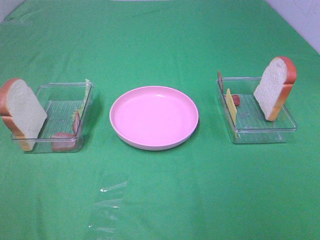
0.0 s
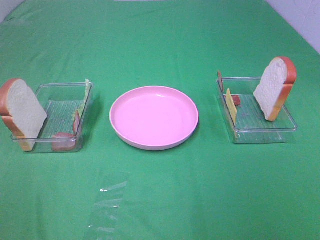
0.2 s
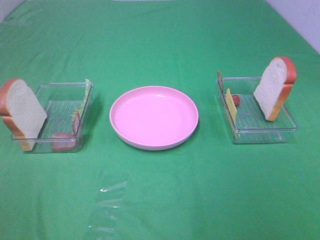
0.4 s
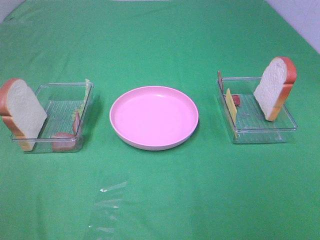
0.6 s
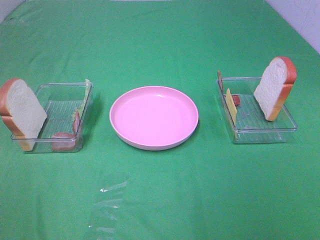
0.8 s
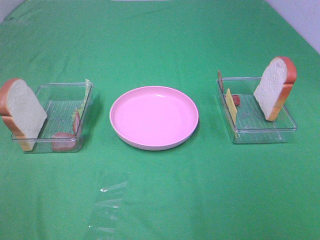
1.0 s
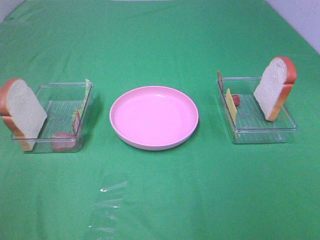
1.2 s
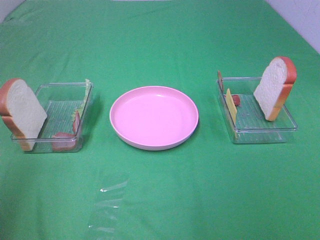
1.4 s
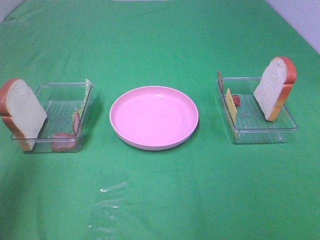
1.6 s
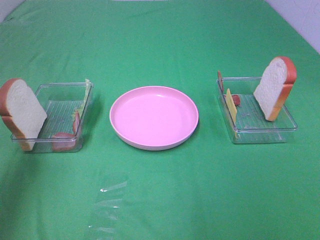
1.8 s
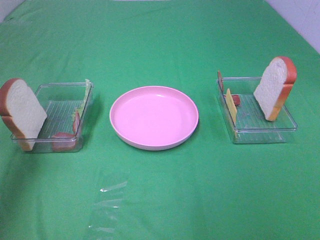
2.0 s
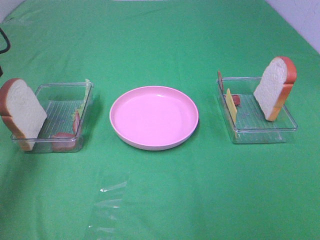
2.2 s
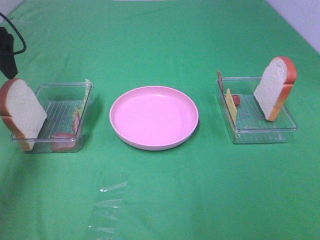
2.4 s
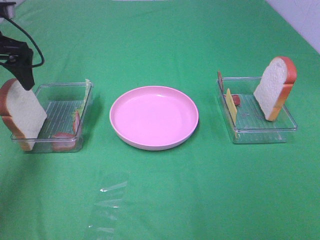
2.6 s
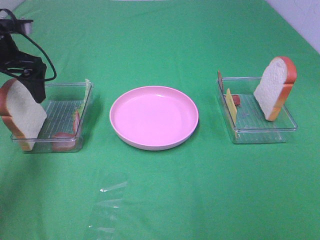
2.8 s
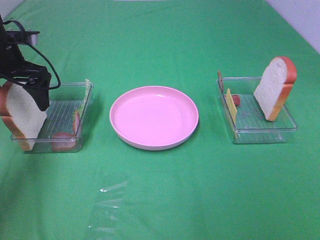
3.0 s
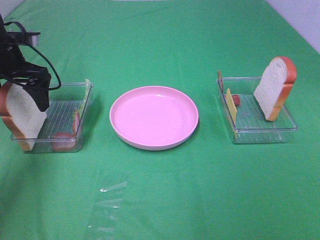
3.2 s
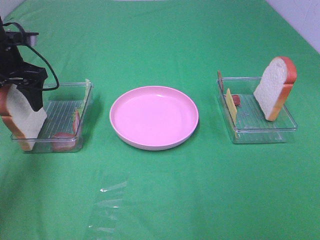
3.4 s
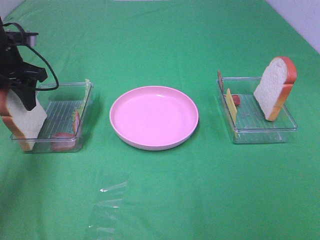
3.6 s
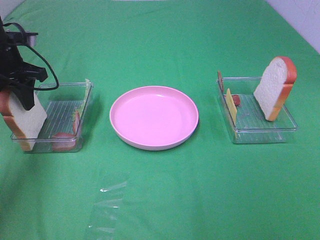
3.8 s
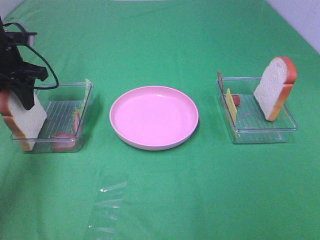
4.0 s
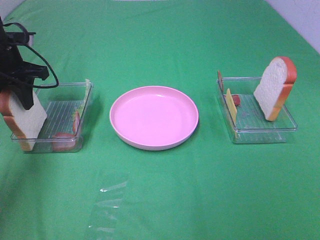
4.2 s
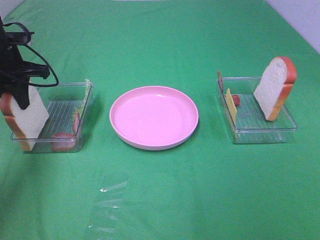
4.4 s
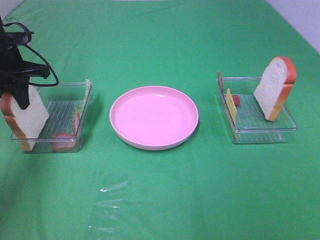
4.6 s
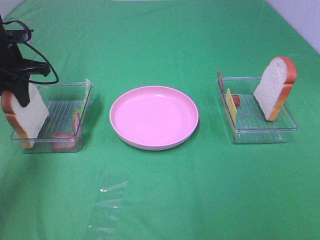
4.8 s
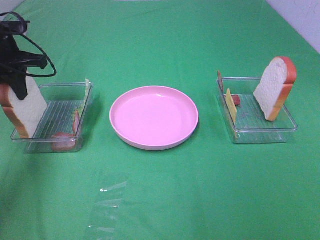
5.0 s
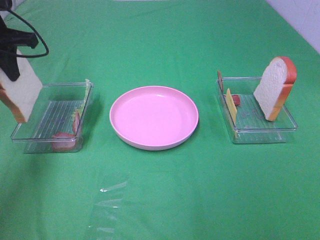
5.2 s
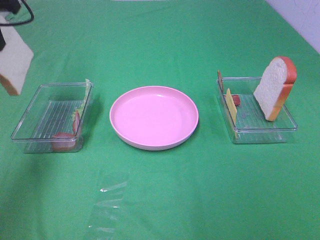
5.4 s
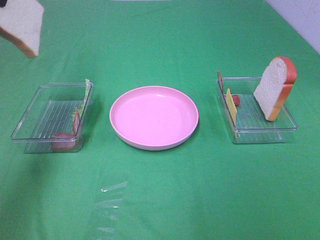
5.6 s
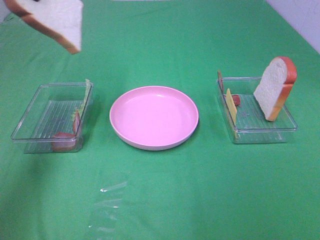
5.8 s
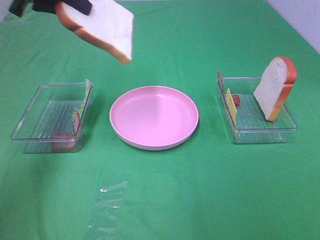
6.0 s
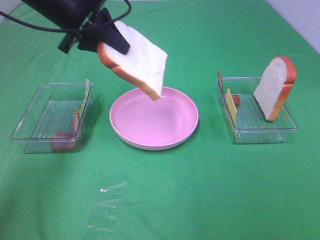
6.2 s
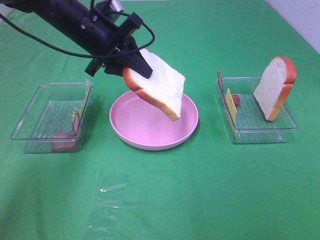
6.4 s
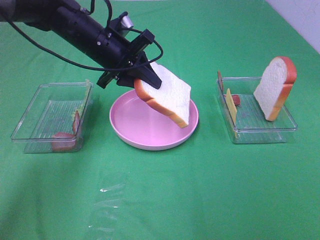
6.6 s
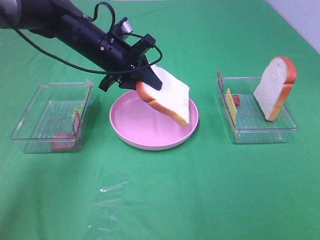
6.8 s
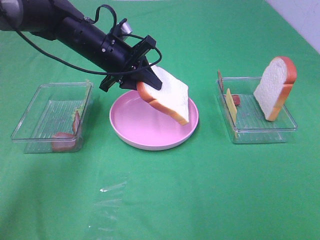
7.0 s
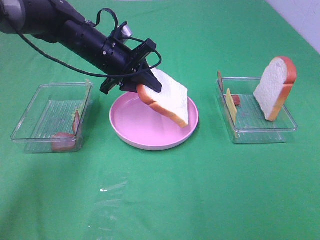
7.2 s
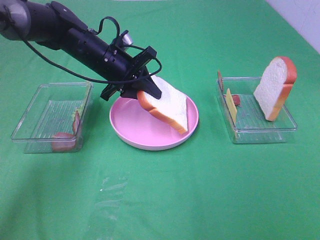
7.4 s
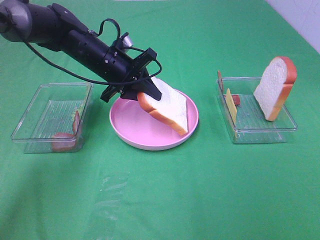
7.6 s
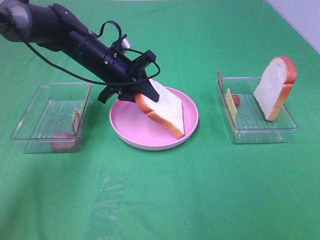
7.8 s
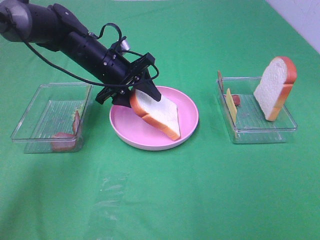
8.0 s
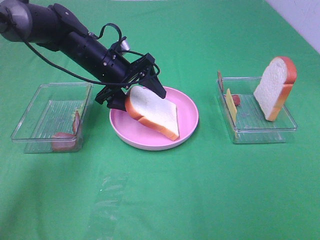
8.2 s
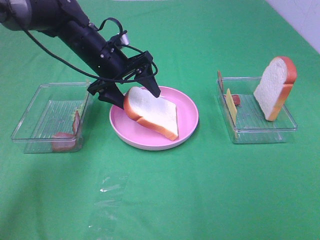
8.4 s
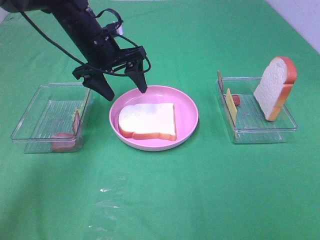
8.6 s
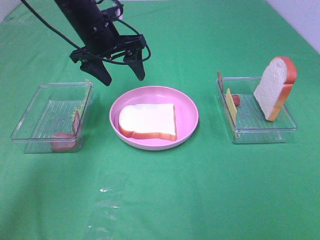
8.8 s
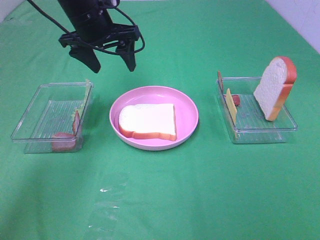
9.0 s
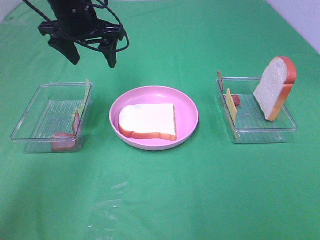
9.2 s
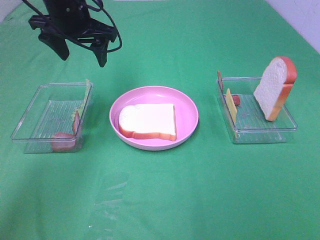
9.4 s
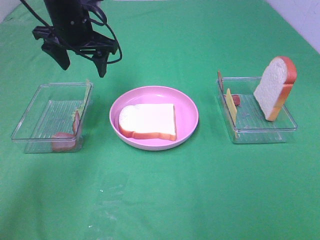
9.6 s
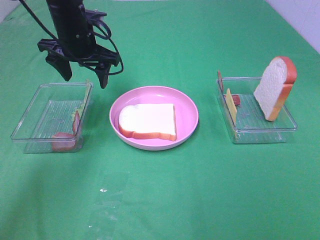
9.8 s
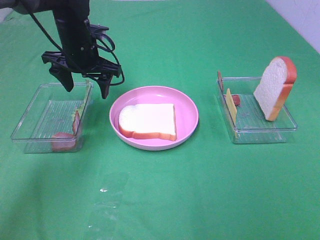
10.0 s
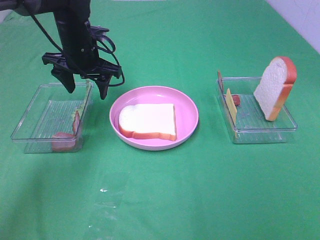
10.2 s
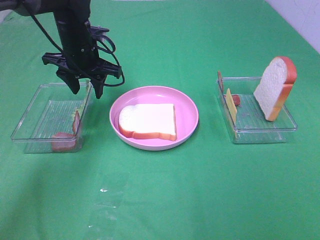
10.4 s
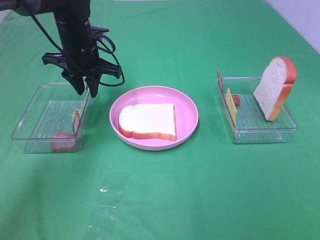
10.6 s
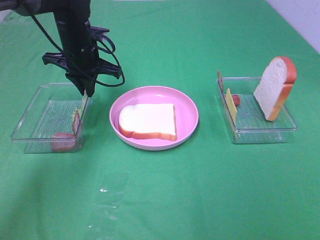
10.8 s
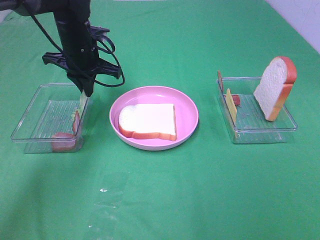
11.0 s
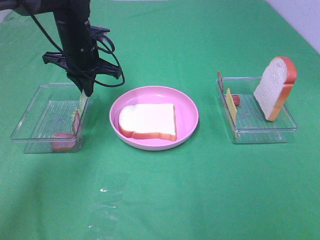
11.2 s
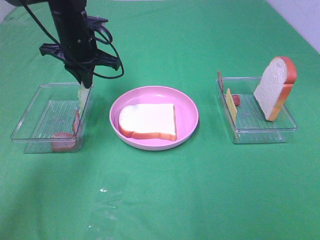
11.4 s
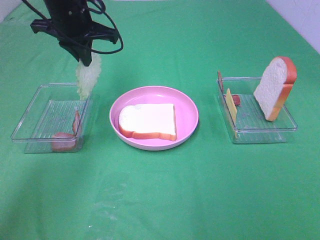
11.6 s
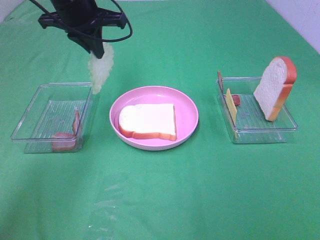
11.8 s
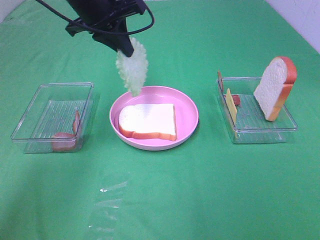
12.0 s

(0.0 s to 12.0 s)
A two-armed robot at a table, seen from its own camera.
Task of the whole recording: Make sandwiches.
Step, 0.0 s - 4.6 s: Left hand:grab the bread slice.
Step, 4.8 s - 8.6 s: Left hand:place the bread slice on the plate.
Step, 8.8 s - 11.2 s: Left hand:grab the lettuce slice.
0.0 s - 1.6 s: The left gripper travels forward and upward by approximately 20 cm.
1.6 s - 3.0 s: The left gripper shifts about 30 cm forward and downward.
3.0 s - 4.4 s: The left gripper closes its fingers.
4.4 s - 6.0 s: The left gripper heads upward and to the right, covering some 15 cm.
6.0 s - 7.6 s: The left gripper travels downward and to the right by about 20 cm.
7.6 s - 9.0 s: The left gripper heads upward, covering some 10 cm, and opens its fingers.
9.0 s - 10.4 s: The left gripper shifts about 5 cm downward.
10.4 s - 12.0 s: The left gripper is displaced upward by some 10 cm, and closes its fingers.

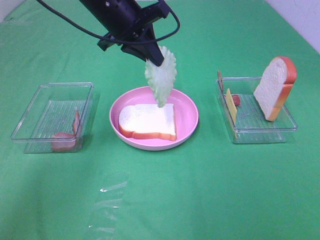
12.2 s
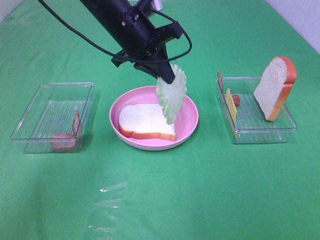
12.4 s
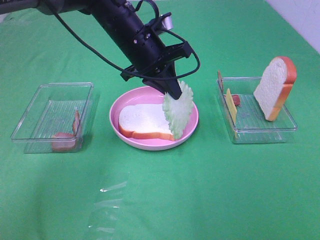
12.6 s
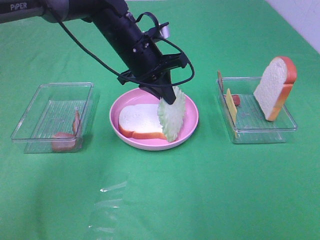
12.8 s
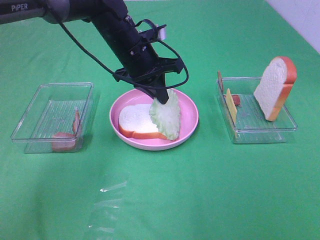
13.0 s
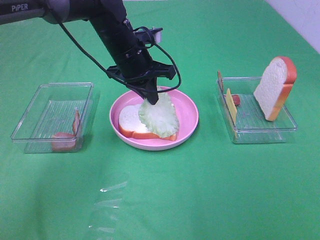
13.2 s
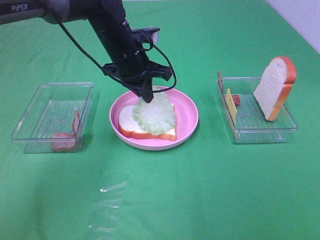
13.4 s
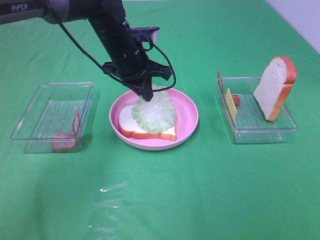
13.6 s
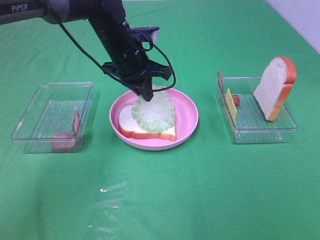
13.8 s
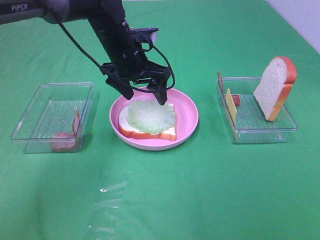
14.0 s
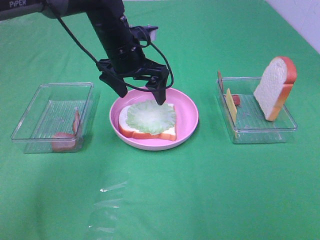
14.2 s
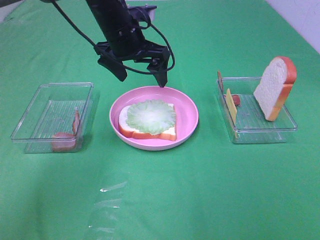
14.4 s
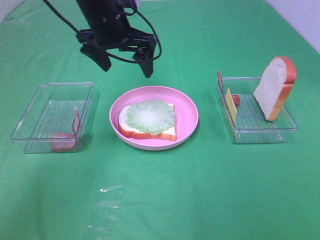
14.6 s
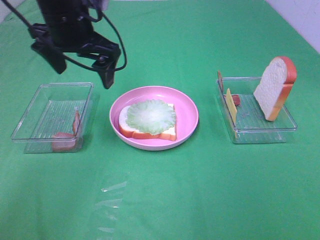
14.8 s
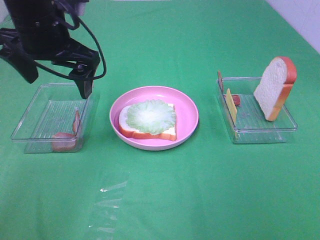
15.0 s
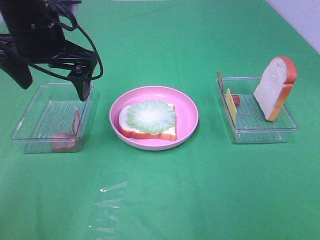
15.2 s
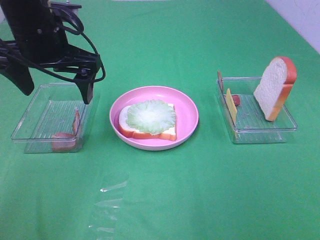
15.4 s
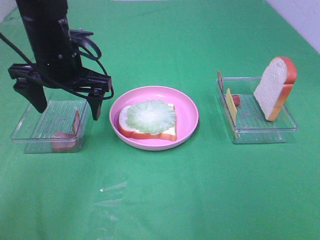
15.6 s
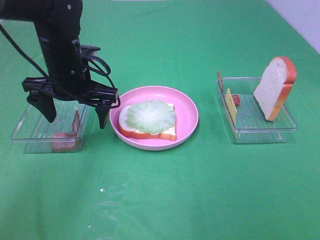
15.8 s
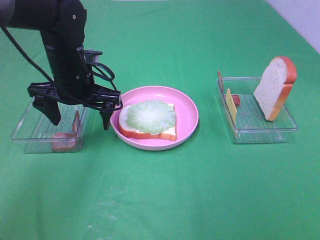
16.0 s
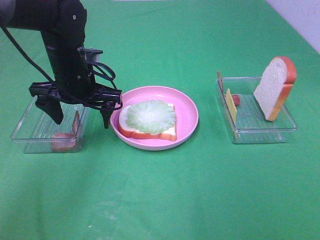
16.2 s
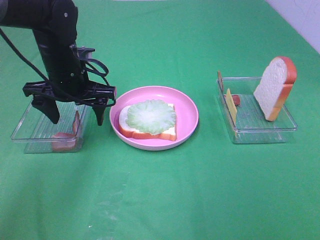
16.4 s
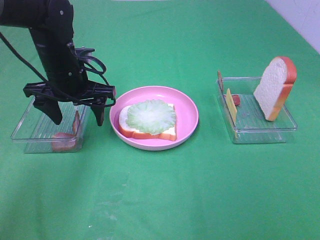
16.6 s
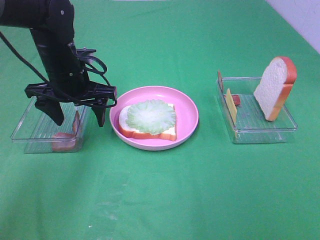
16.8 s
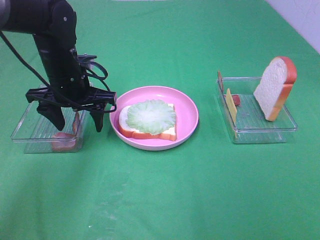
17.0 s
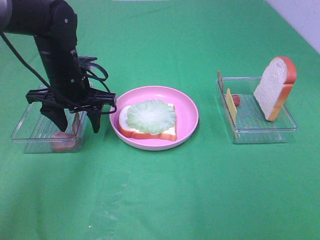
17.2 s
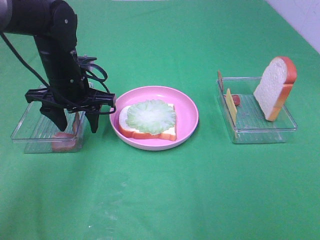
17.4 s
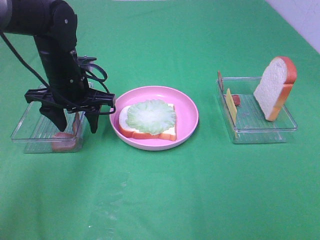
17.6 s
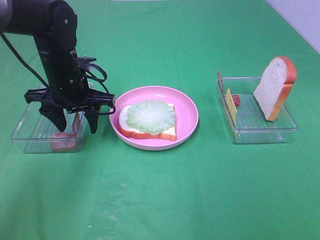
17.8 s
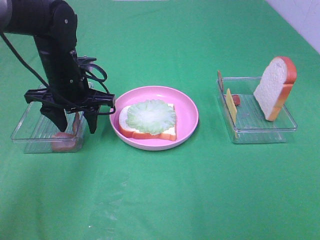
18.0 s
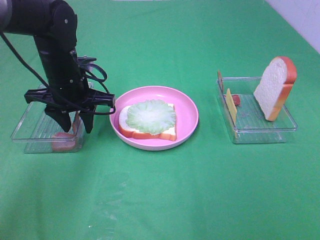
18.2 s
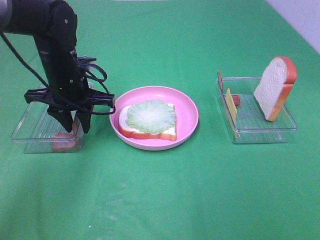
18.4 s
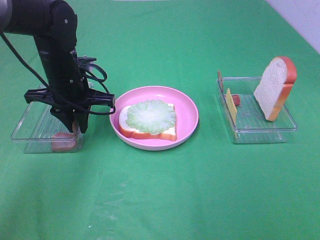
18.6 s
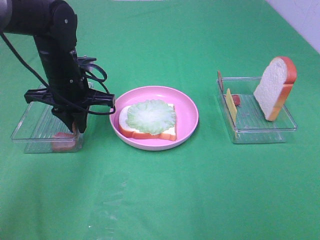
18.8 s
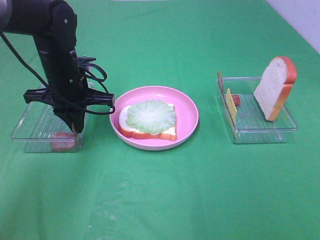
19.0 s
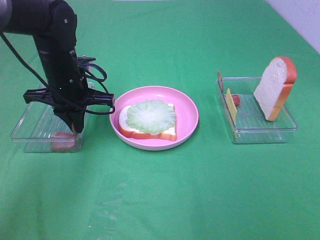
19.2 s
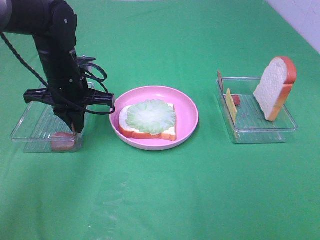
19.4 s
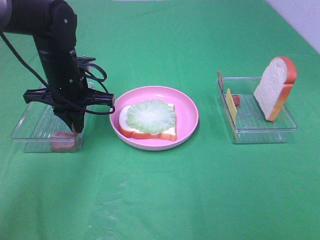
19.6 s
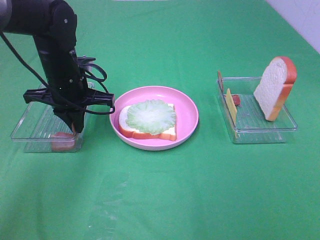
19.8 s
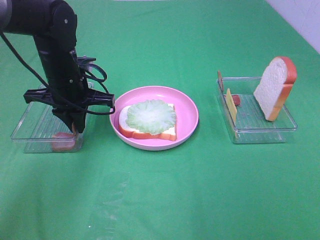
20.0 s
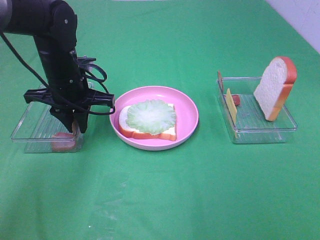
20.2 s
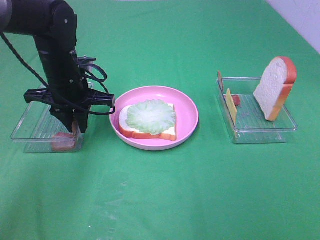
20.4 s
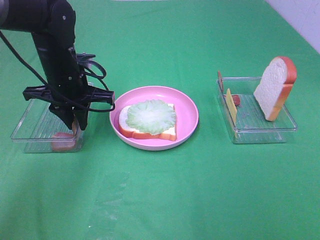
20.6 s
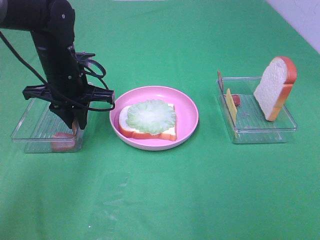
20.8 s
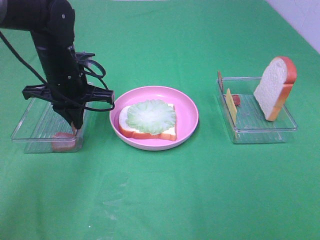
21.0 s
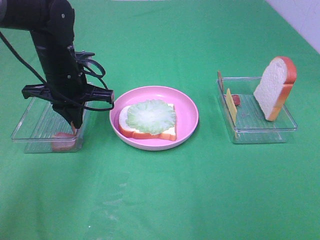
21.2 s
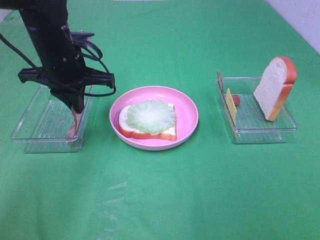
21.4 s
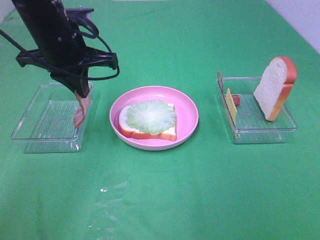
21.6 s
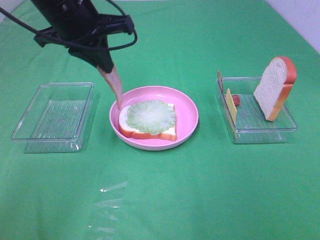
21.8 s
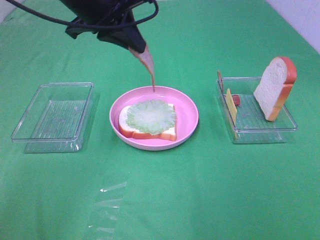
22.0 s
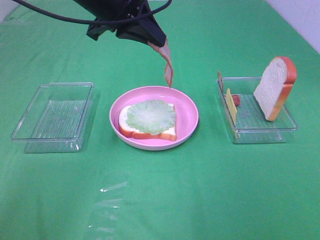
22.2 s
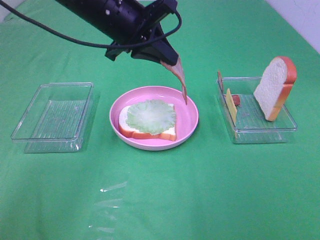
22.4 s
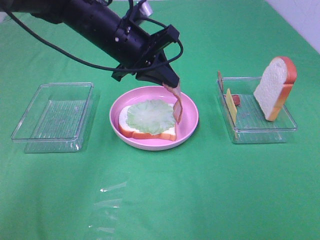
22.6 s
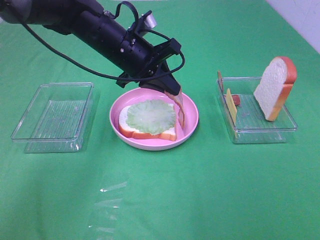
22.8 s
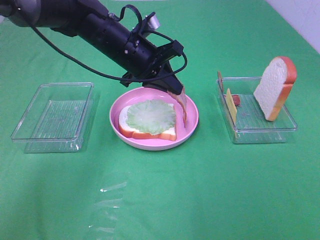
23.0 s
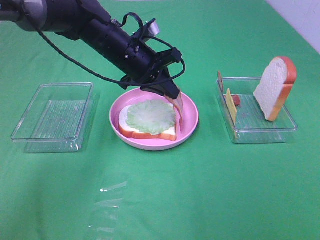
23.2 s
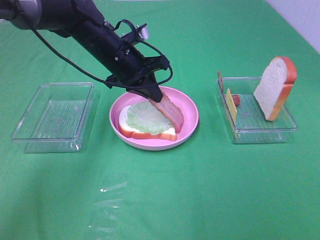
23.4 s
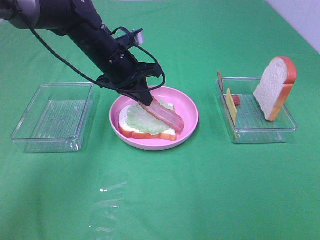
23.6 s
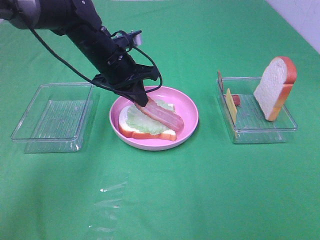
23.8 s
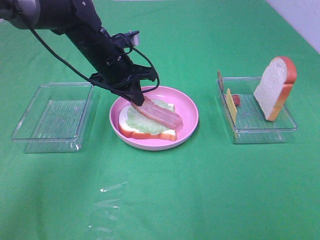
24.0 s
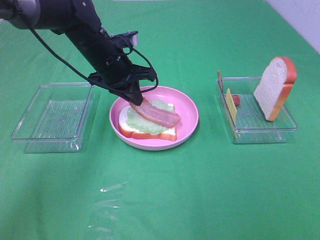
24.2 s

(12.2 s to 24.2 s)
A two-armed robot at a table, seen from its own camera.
Task of the whole recording: Make sandwiches.
Step, 12.2 s - 14.0 s: Left hand:place the lettuce slice on the bread slice.
Step, 14.2 s - 19.2 s: Left hand:grab the bacon.
12.2 s - 13.8 s: The left gripper shifts about 10 cm downward.
13.8 s - 15.2 s: The left gripper is displaced to the left, backward and upward by approximately 15 cm, and opens its fingers.
15.2 s - 16.6 s: The left gripper is displaced downward by about 10 cm.
16.6 s - 18.2 s: The left gripper closes up.
18.2 s - 19.8 s: The left gripper closes its fingers.
19.8 s - 21.2 s: Both grippers stay put.
21.2 s - 22.6 s: The left gripper is displaced to the right and upward by some 10 cm.
22.6 s - 24.2 s: The left gripper goes some 5 cm downward.
